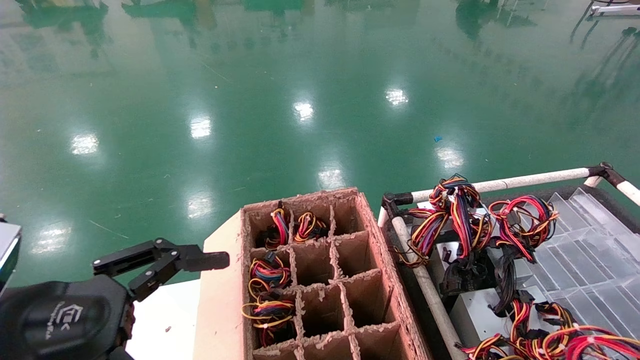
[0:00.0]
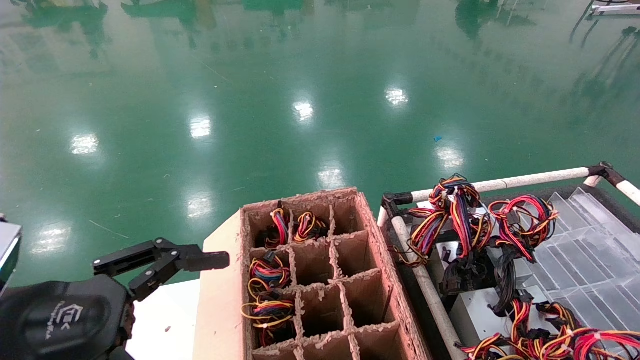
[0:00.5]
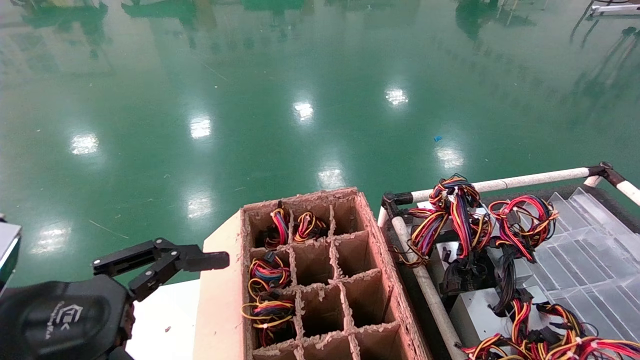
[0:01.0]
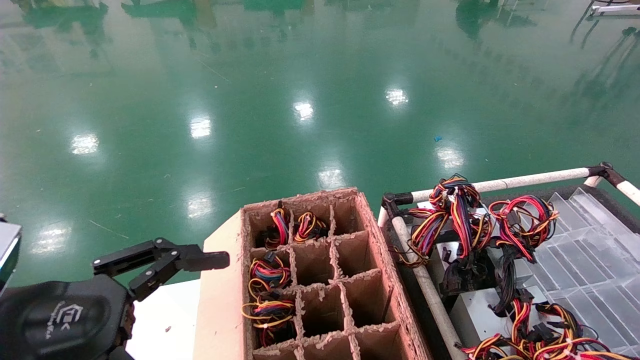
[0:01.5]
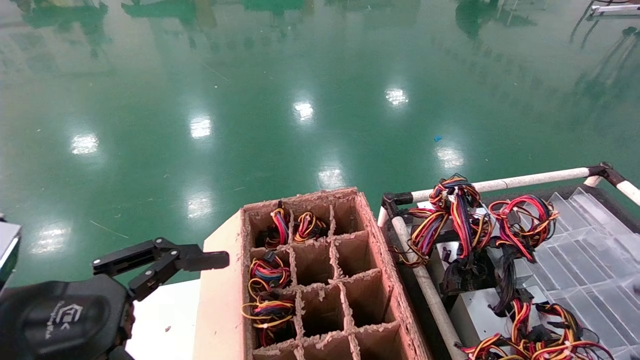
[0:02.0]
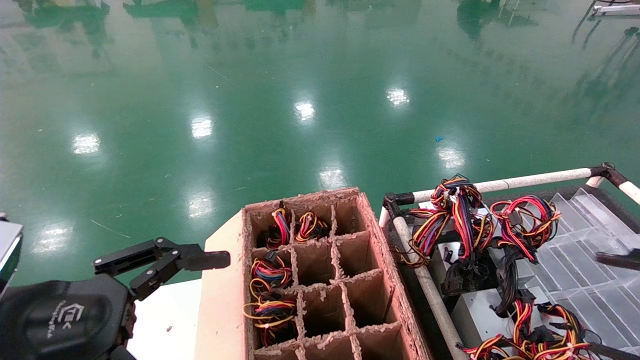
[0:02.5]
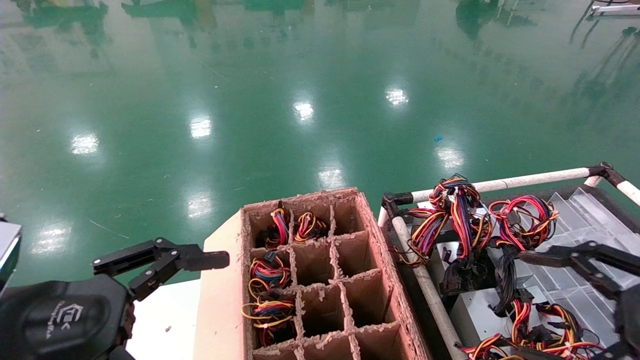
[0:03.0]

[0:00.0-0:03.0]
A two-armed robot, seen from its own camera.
0:00.0 to 0:01.5: The grippers move only a little.
0:01.5 to 0:03.0: The right gripper heads to the left, covering approximately 10 cm, and opens.

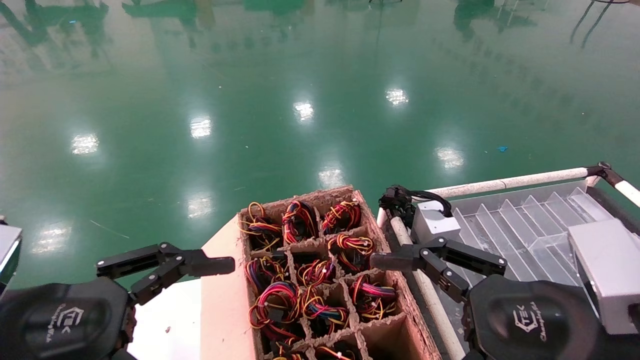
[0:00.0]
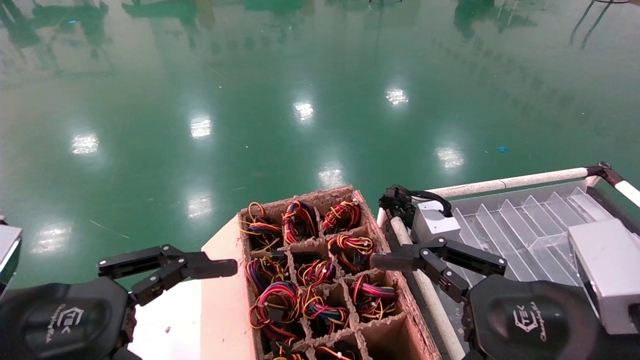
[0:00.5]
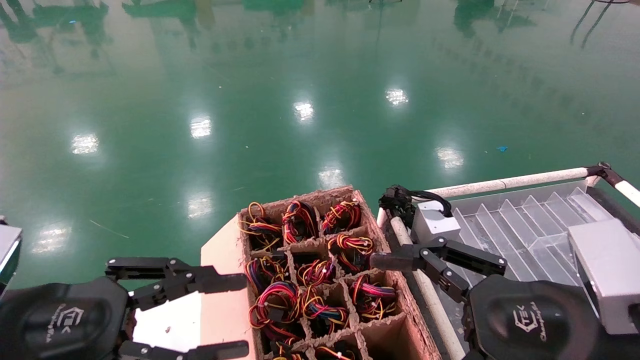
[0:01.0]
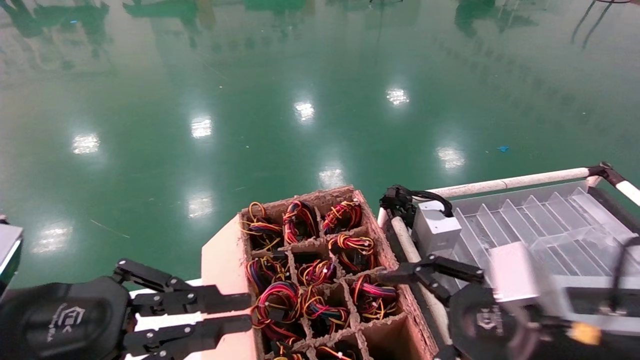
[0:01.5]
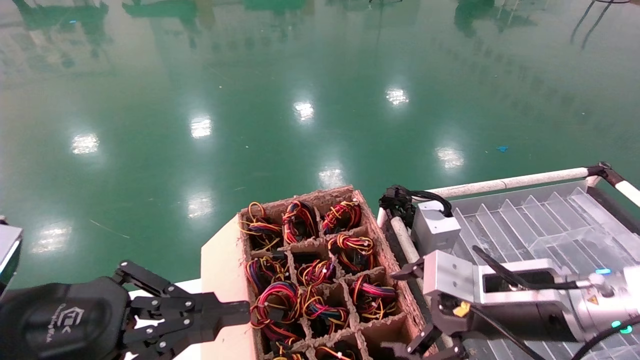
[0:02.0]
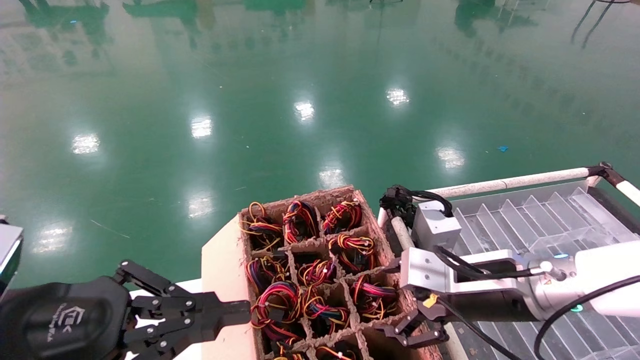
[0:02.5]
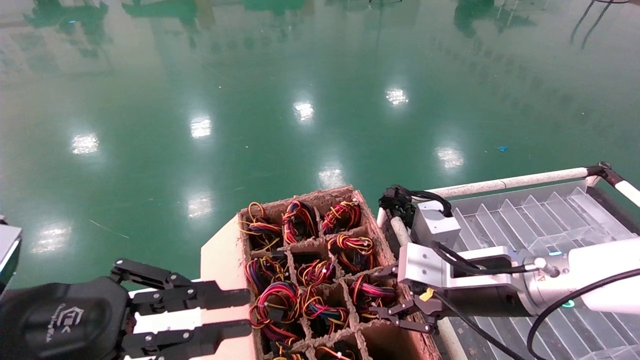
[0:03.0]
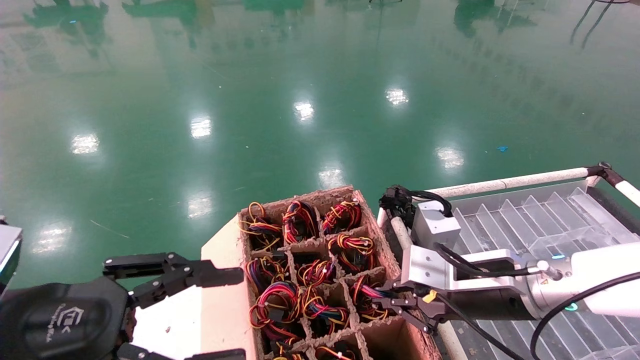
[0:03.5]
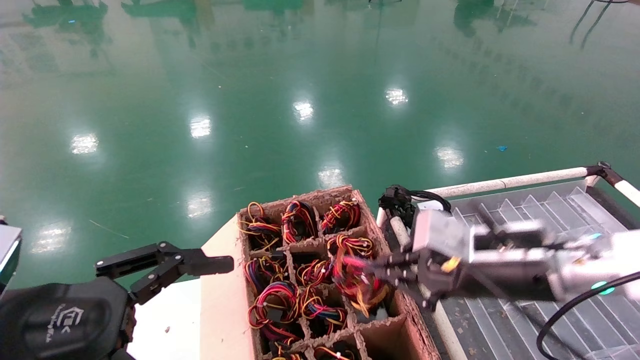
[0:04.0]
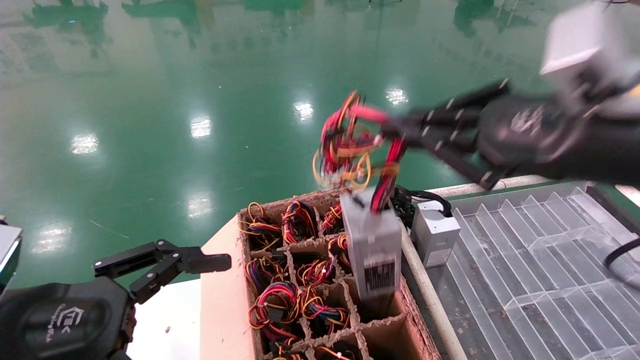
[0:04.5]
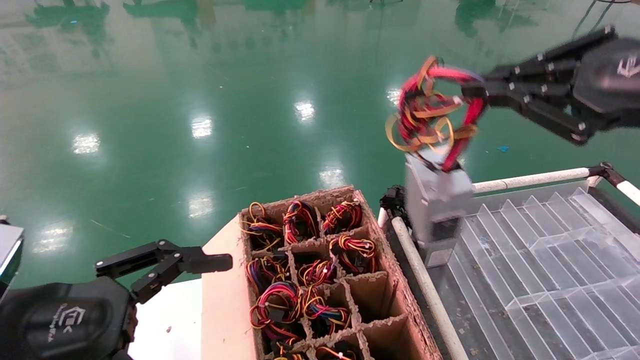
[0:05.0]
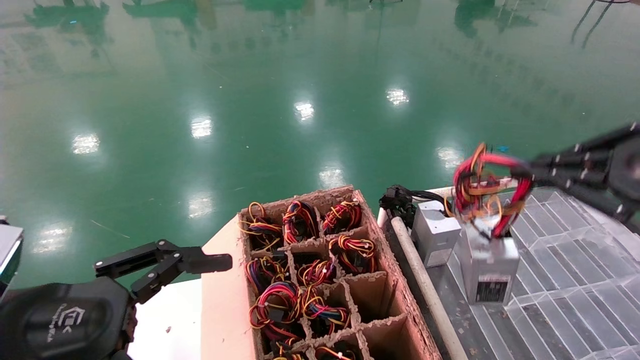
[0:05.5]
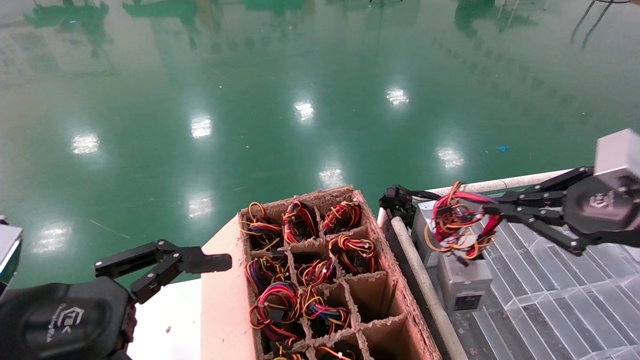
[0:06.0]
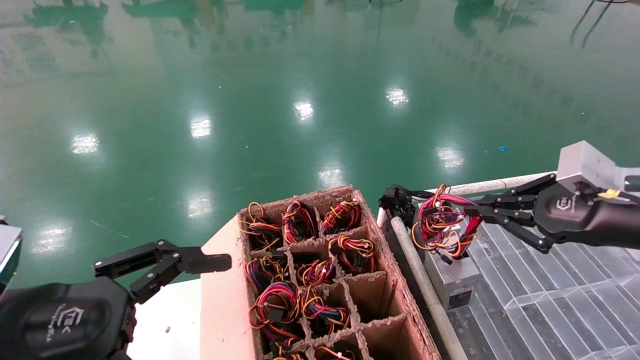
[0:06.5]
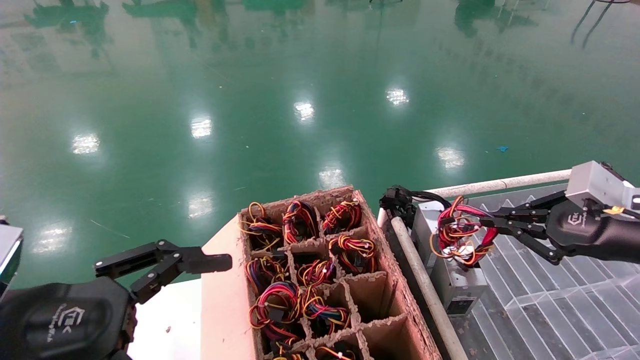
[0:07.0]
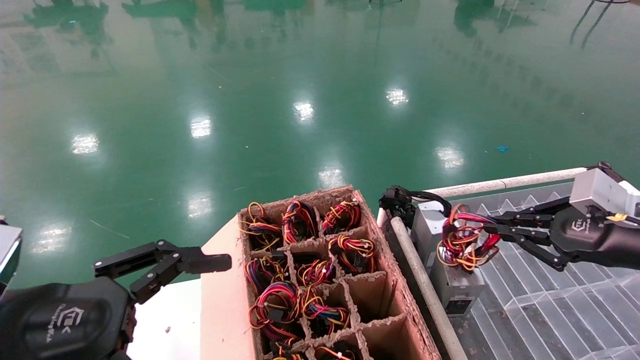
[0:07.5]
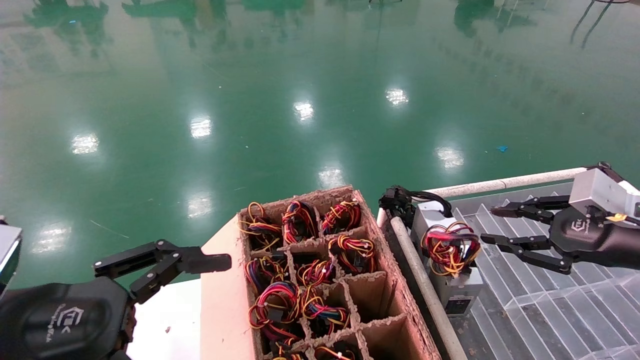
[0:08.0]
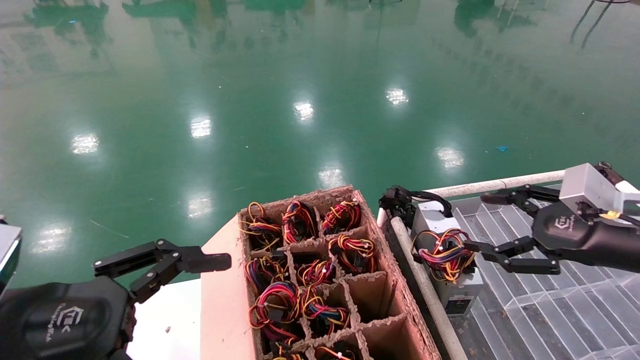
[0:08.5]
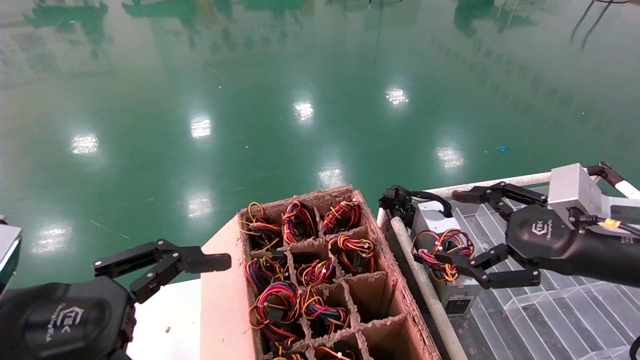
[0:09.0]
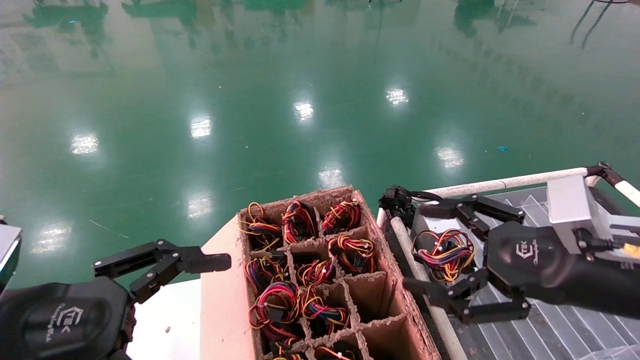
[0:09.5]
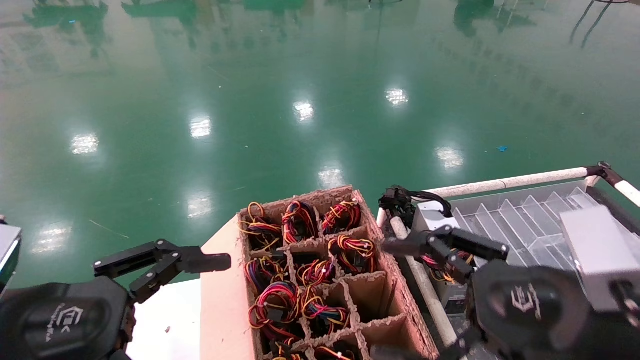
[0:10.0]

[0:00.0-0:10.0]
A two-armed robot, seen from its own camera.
Step, 0:01.0 to 0:03.5: Grab and lift the power supply from the large box.
Step, 0:04.0 to 0:07.5: Place the power supply on the operating table.
0:00.0 to 0:02.0: The right gripper heads forward, covering some 10 cm. Meanwhile the left gripper closes its fingers.
0:02.0 to 0:04.0: The right gripper heads upward, covering about 5 cm, and closes up; the left gripper opens.
0:04.0 to 0:06.0: The right gripper shifts roughly 15 cm to the right and upward.
0:06.0 to 0:08.0: The right gripper travels downward and forward by about 10 cm.
0:08.0 to 0:10.0: The right gripper moves to the left and backward, about 20 cm, and opens.
